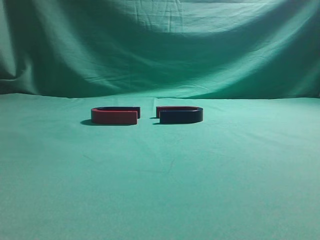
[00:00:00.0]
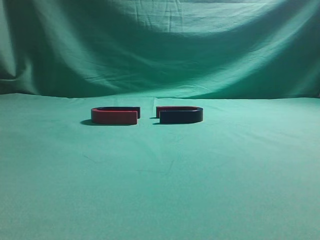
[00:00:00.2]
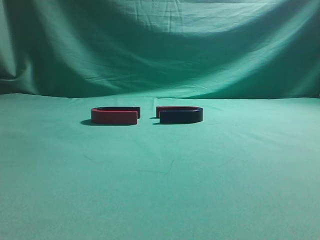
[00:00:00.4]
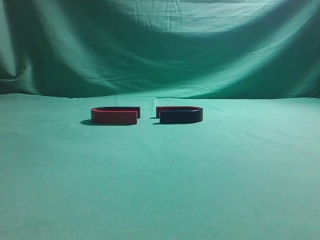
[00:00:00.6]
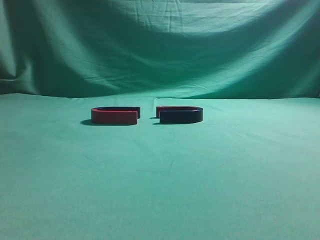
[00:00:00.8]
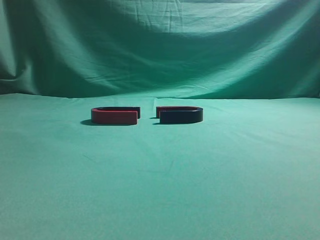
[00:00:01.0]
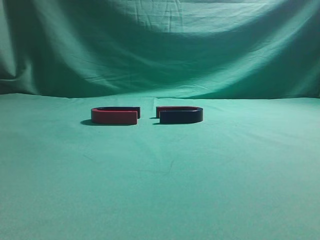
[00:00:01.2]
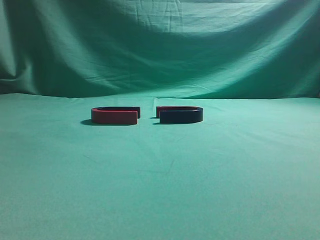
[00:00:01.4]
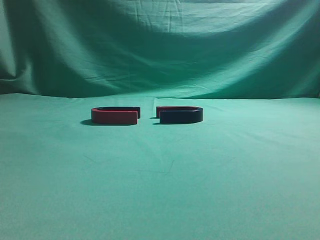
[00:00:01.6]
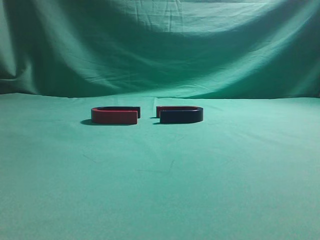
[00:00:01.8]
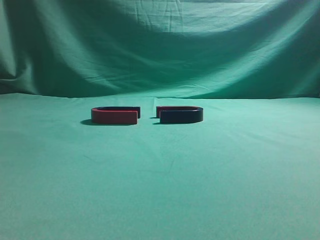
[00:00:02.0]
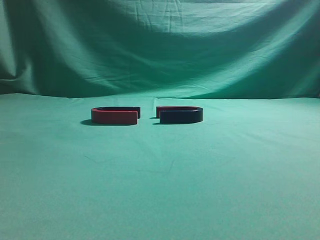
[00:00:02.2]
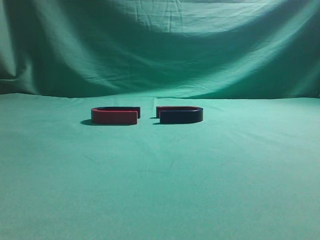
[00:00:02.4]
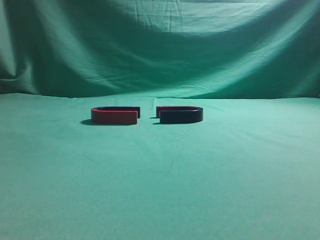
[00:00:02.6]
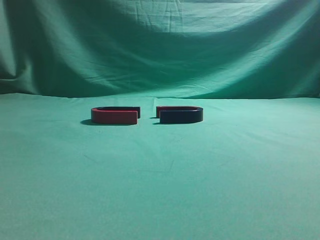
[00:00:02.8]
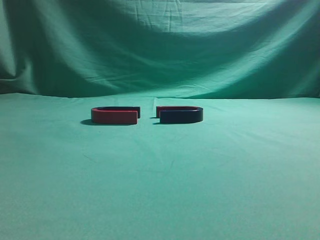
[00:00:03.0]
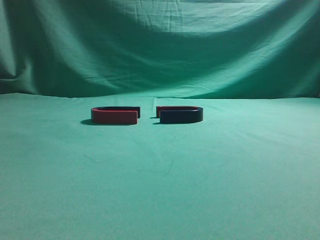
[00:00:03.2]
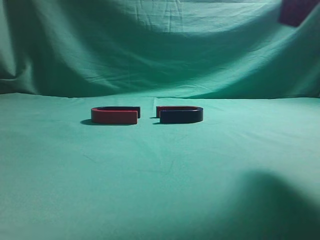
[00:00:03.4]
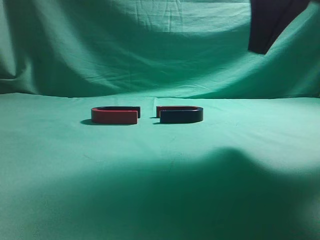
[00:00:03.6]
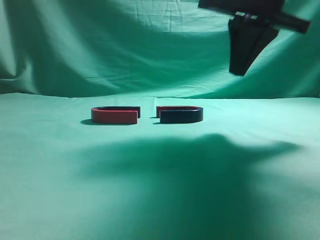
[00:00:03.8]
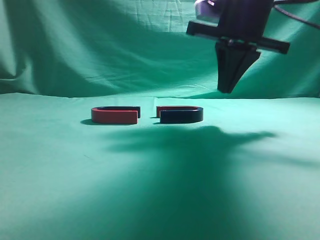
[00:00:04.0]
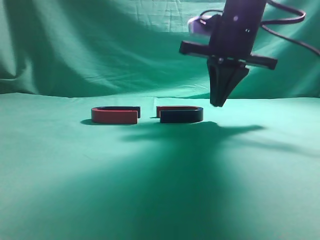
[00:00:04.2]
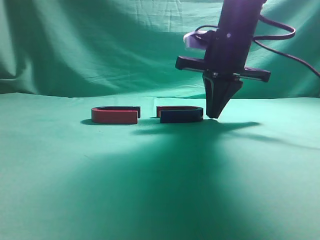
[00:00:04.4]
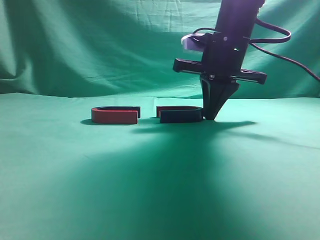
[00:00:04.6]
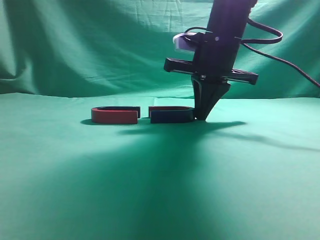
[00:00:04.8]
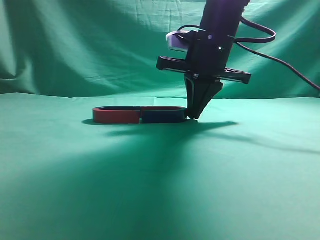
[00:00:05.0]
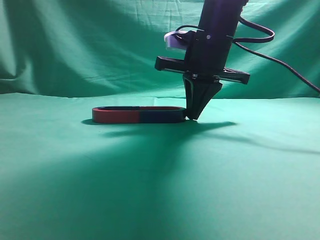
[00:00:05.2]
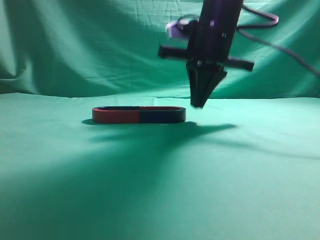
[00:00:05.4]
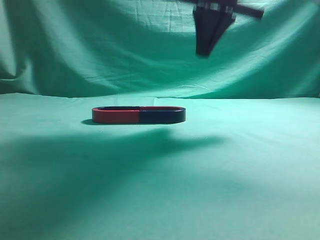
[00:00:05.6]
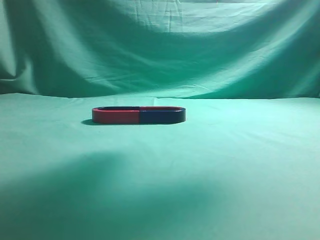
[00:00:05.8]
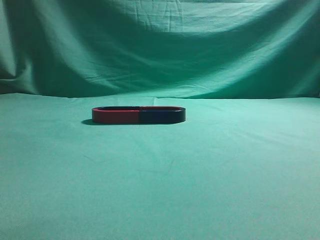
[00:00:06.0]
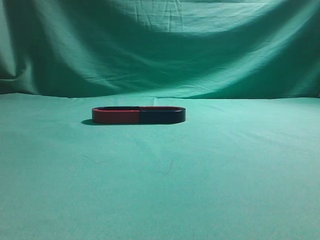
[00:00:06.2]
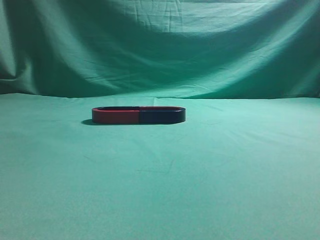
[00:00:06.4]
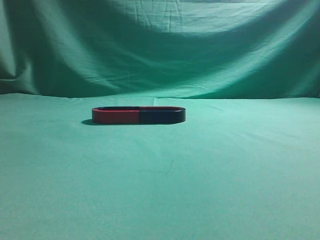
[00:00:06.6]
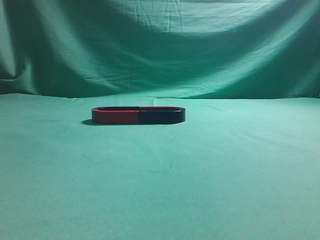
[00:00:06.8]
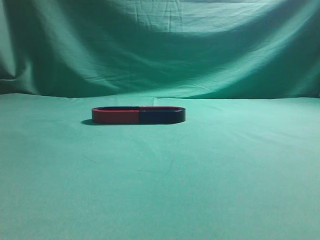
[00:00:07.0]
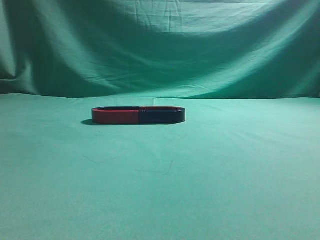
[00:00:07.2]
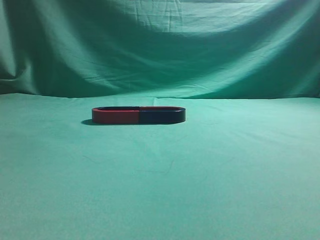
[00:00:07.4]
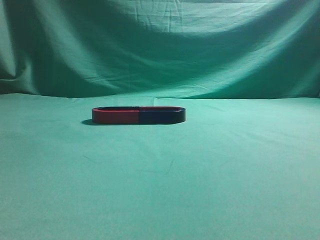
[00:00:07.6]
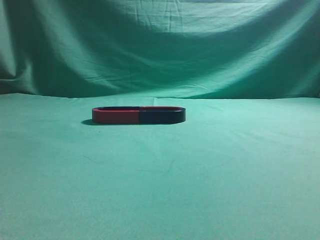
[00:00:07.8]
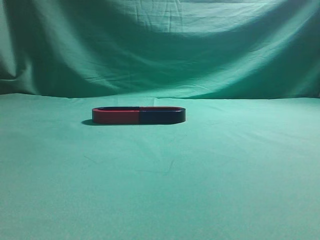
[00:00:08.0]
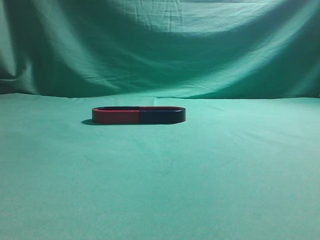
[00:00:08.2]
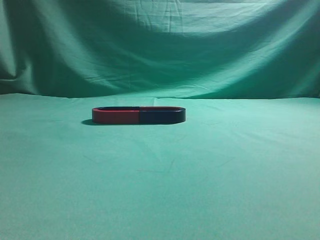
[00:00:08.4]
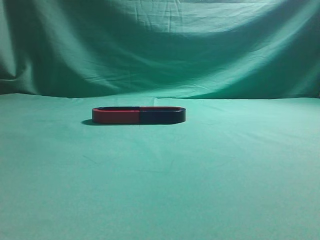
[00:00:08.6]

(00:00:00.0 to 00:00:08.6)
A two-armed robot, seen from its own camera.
Task of the whole recording: push the magnet on the table from its original position to another position.
Step, 00:00:00.0 - 00:00:05.2: Push the magnet on the right to connect the magnet on the left.
00:00:02.8 - 00:00:04.4: The right gripper travels forward, to the left and downward by about 35 cm.
00:00:04.4 - 00:00:05.8: The right gripper heads upward, covering roughly 15 cm.
00:00:05.8 - 00:00:07.2: The right gripper shifts roughly 35 cm backward and to the right.
